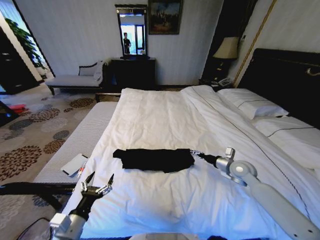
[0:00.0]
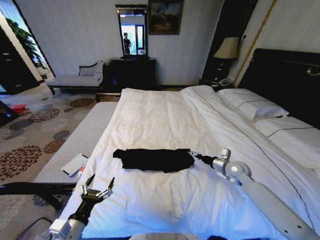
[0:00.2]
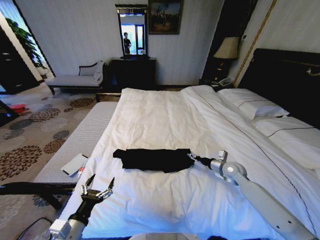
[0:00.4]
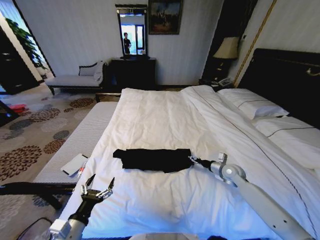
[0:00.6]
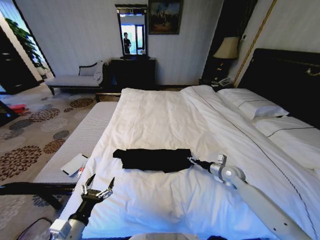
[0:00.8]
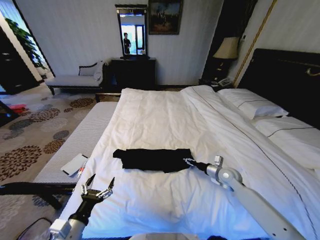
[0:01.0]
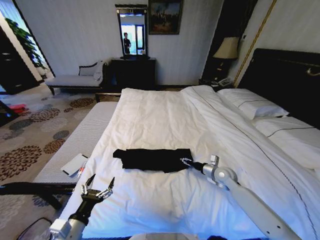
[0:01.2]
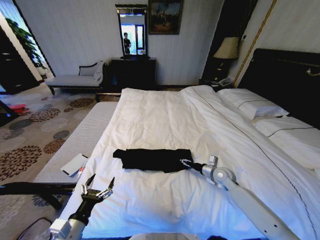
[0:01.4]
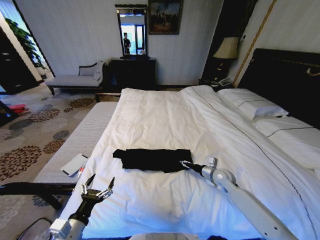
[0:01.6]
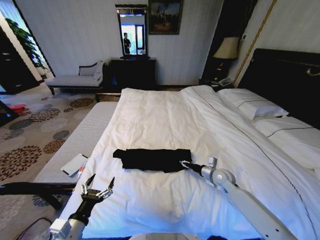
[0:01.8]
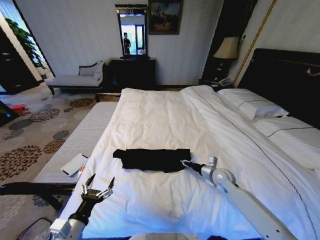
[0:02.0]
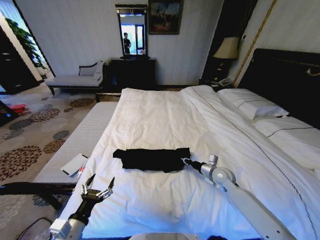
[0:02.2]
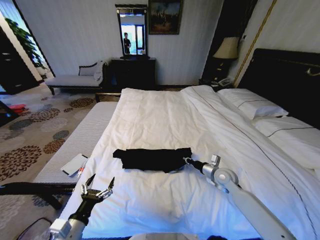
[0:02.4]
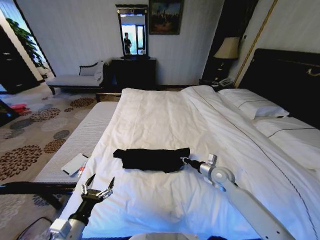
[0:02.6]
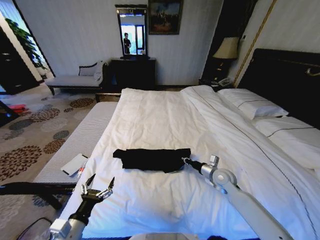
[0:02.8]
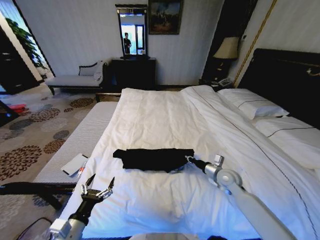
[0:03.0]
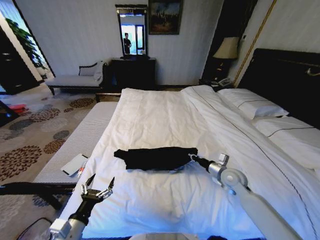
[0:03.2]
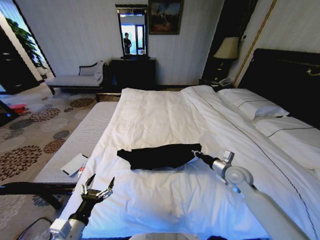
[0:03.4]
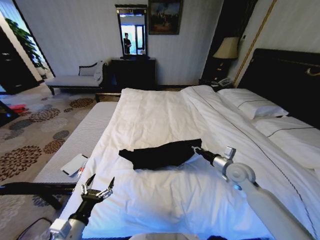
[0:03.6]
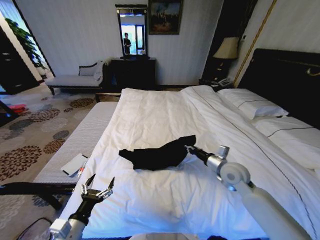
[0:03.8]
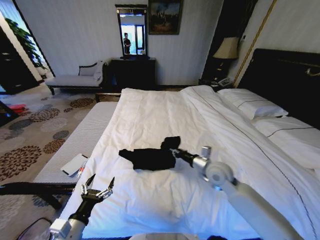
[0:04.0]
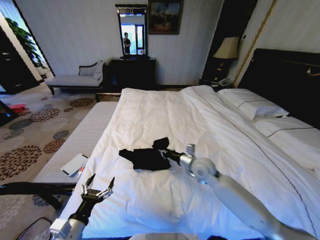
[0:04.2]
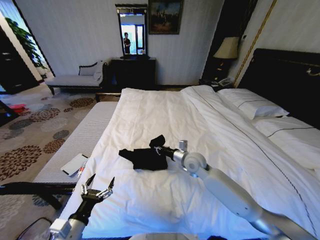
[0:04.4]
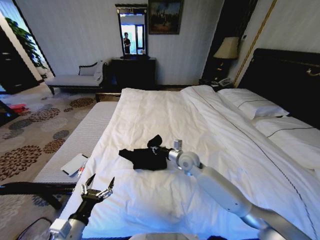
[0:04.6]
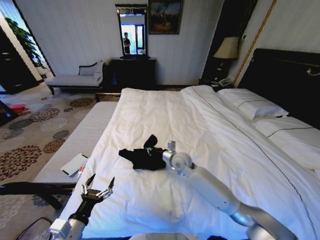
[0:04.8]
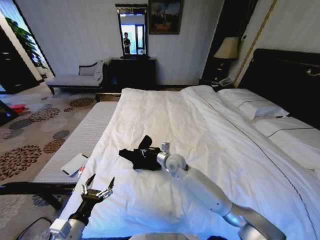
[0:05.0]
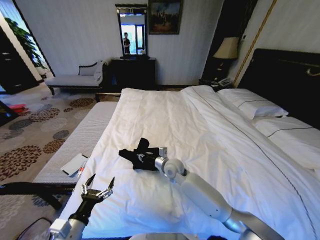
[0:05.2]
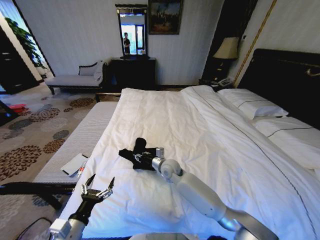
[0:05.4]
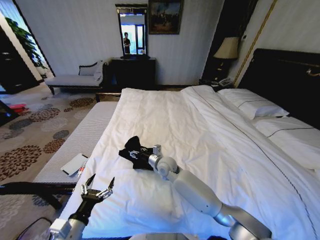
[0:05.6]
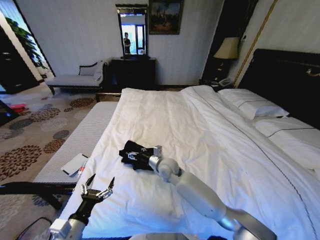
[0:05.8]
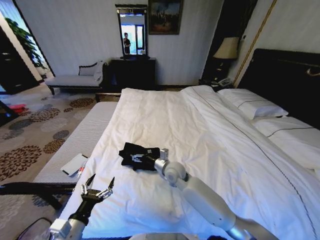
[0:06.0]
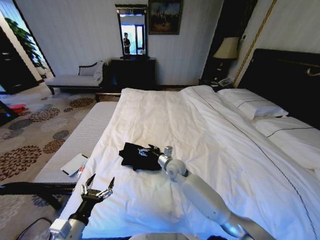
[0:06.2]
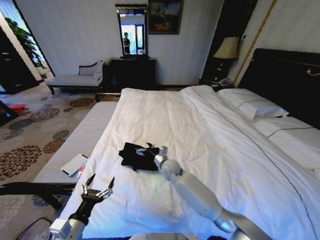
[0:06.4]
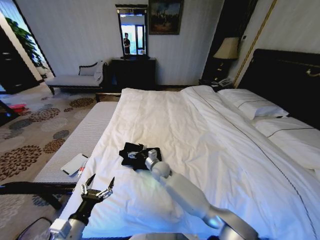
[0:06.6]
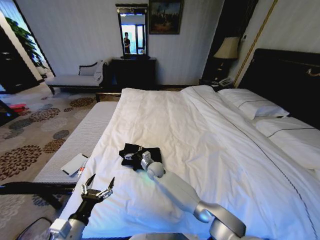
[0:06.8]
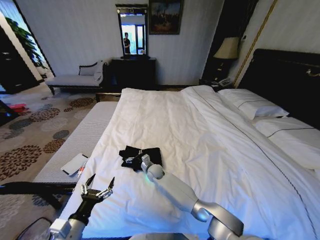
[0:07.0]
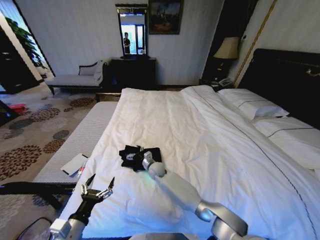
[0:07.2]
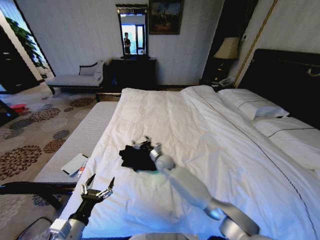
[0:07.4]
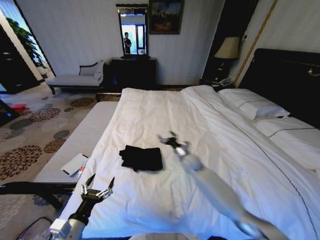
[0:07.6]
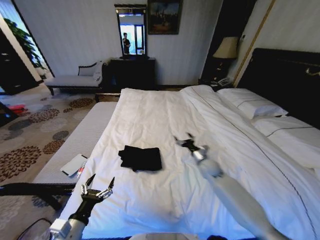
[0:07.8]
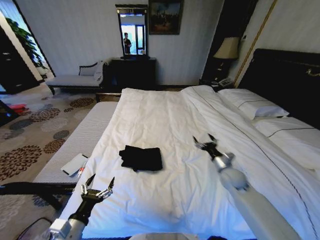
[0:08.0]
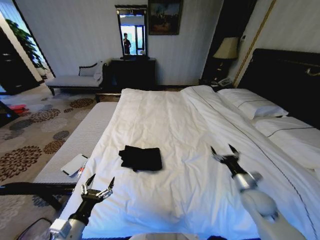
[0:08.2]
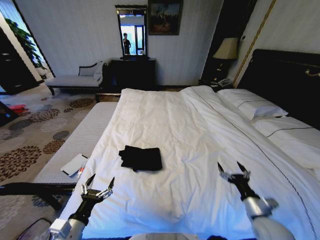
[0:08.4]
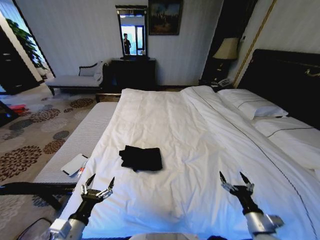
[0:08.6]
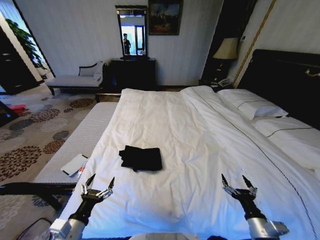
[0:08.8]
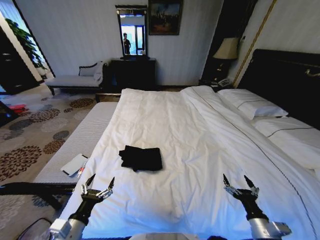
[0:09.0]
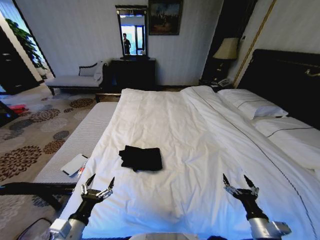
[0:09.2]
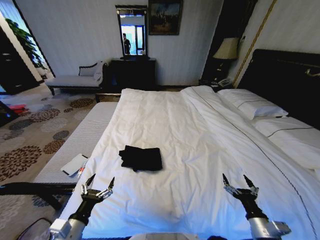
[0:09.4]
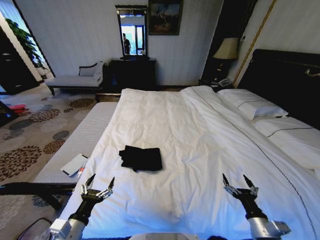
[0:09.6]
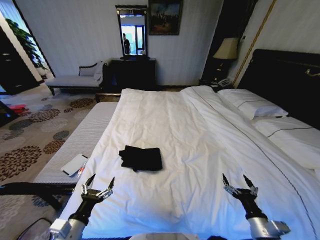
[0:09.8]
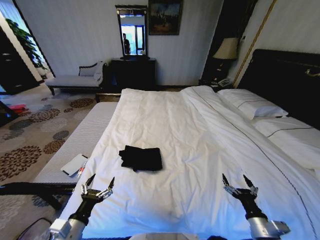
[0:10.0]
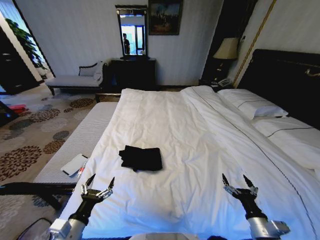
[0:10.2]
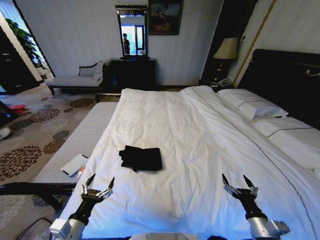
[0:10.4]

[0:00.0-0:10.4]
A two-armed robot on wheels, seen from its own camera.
Task of the whole recording: Fold the clothes on the bed.
0:00.0 to 0:01.4: The right gripper shifts some 5 cm downward.
0:01.4 to 0:03.0: The right gripper ends up about 5 cm from where it was, and closes.
0:03.0 to 0:04.4: The right gripper heads to the left and upward, covering about 15 cm.
0:04.4 to 0:06.0: The right gripper shifts roughly 10 cm to the left, and opens up.
0:06.0 to 0:07.4: The right gripper goes roughly 10 cm forward and downward.
0:07.4 to 0:09.0: The right gripper heads backward and to the right, covering roughly 50 cm.
0:09.0 to 0:10.4: Both grippers stay put.

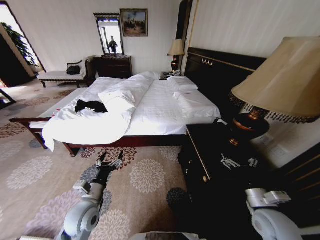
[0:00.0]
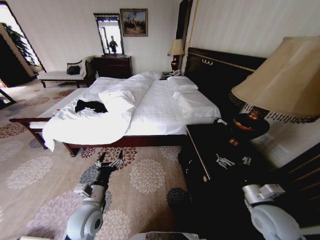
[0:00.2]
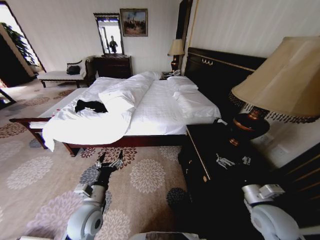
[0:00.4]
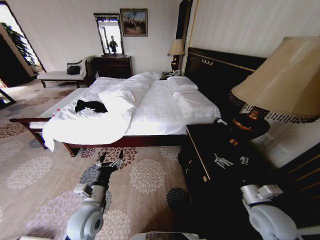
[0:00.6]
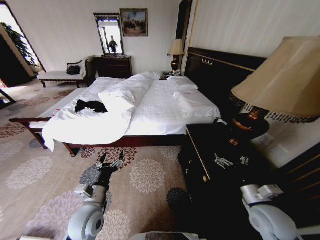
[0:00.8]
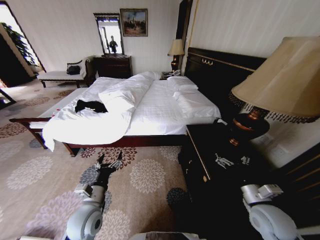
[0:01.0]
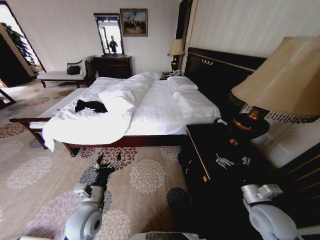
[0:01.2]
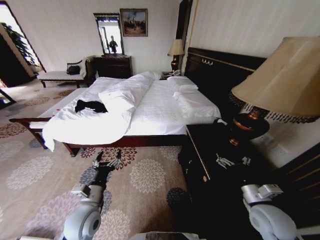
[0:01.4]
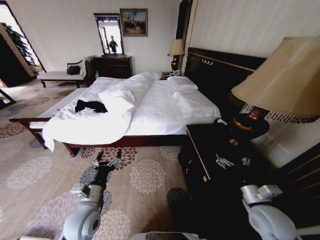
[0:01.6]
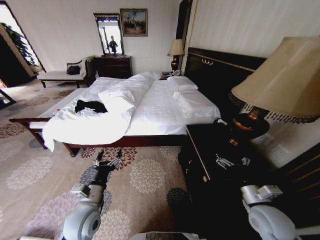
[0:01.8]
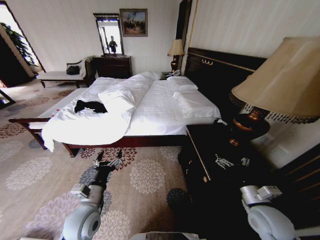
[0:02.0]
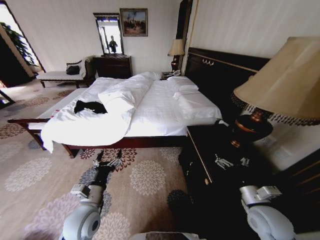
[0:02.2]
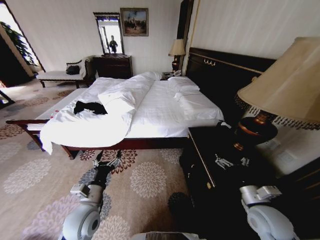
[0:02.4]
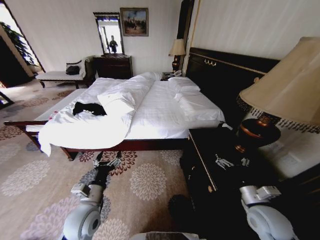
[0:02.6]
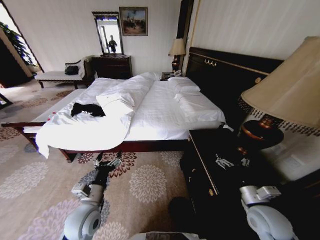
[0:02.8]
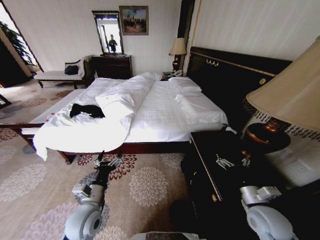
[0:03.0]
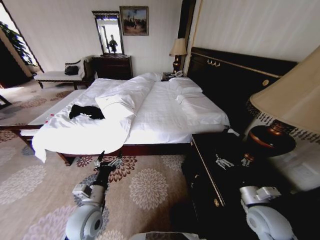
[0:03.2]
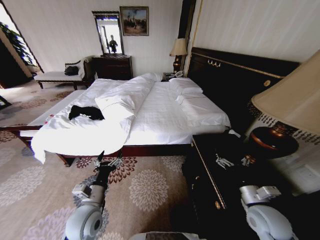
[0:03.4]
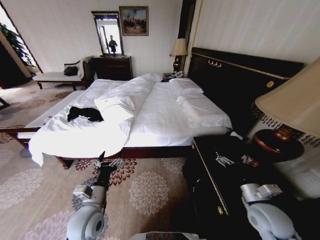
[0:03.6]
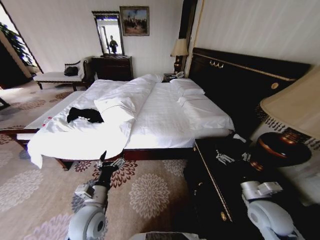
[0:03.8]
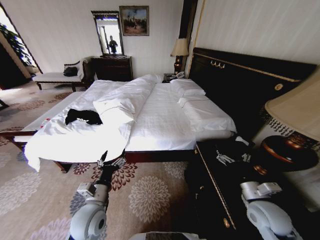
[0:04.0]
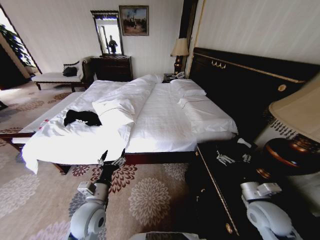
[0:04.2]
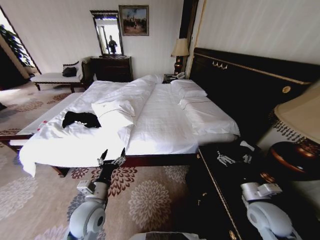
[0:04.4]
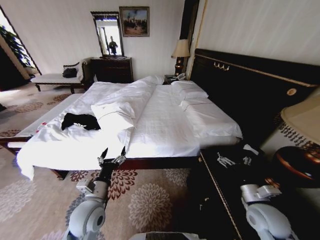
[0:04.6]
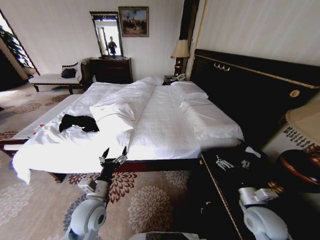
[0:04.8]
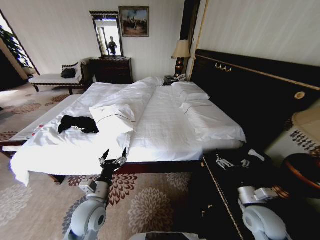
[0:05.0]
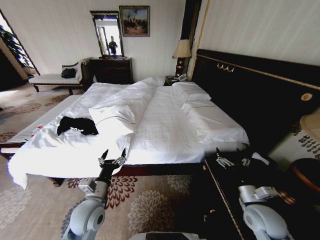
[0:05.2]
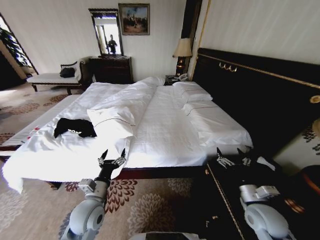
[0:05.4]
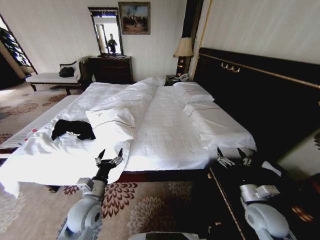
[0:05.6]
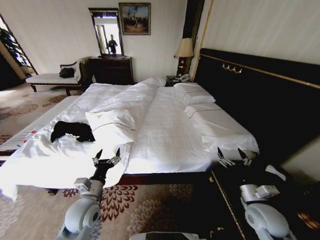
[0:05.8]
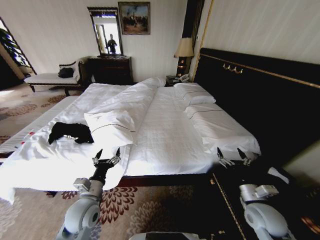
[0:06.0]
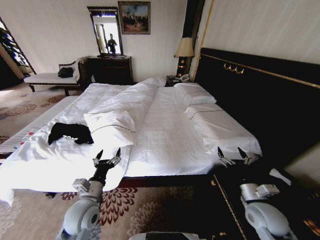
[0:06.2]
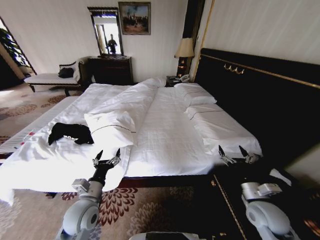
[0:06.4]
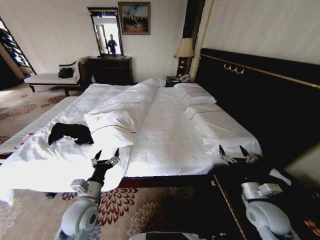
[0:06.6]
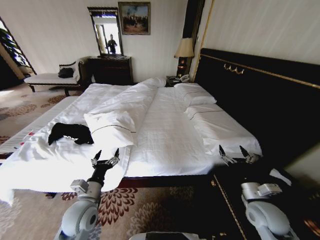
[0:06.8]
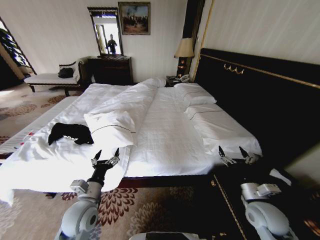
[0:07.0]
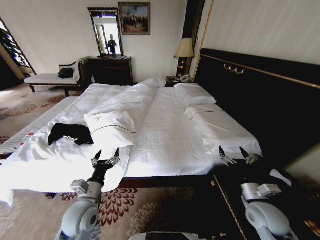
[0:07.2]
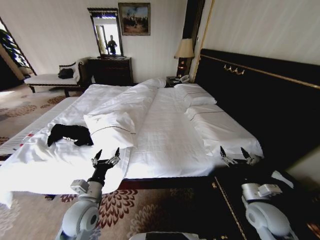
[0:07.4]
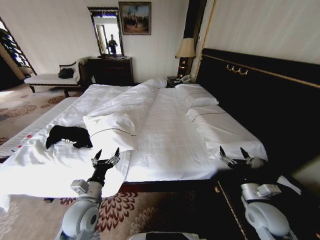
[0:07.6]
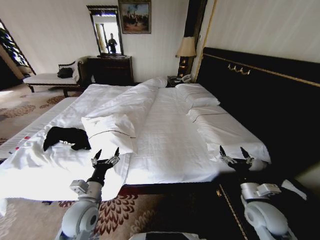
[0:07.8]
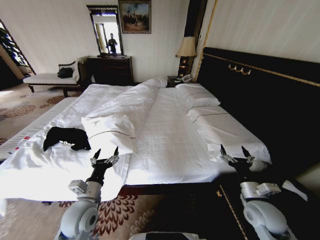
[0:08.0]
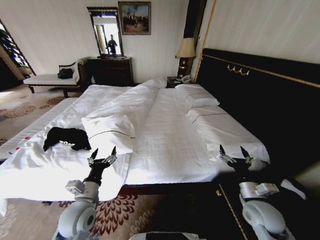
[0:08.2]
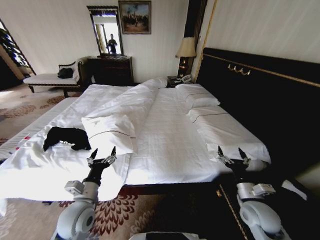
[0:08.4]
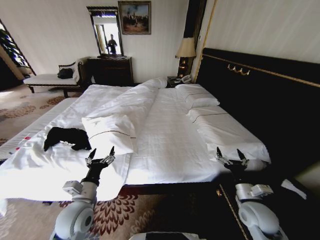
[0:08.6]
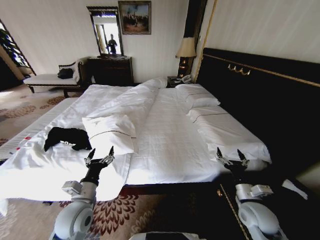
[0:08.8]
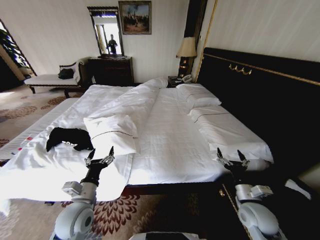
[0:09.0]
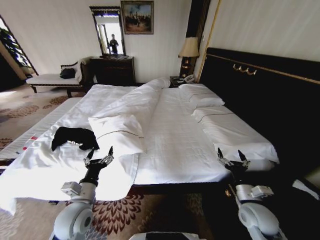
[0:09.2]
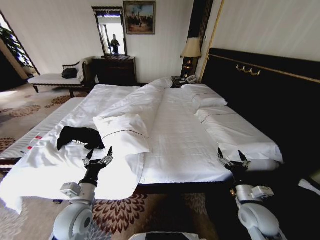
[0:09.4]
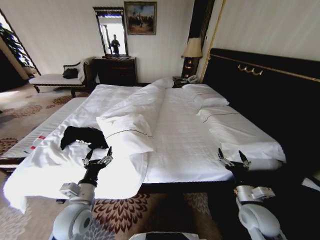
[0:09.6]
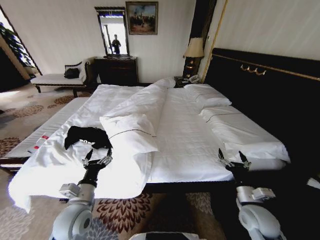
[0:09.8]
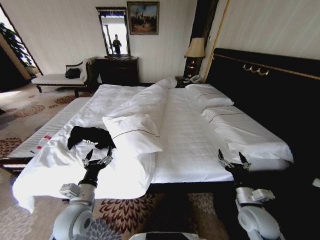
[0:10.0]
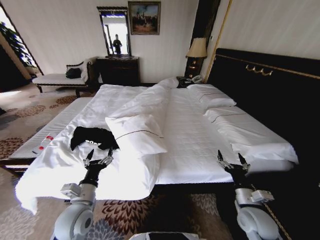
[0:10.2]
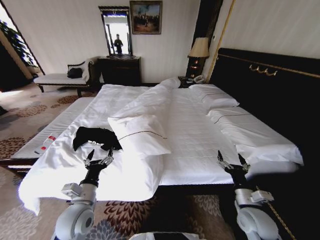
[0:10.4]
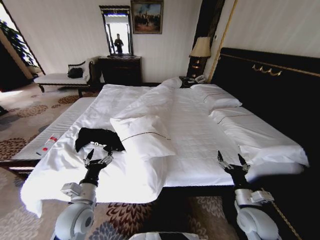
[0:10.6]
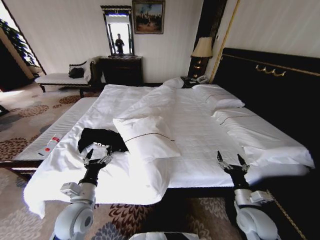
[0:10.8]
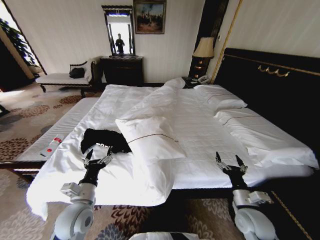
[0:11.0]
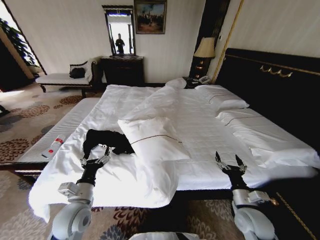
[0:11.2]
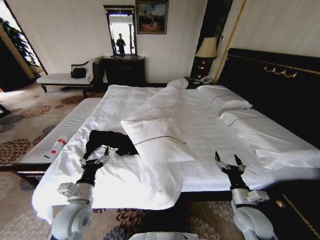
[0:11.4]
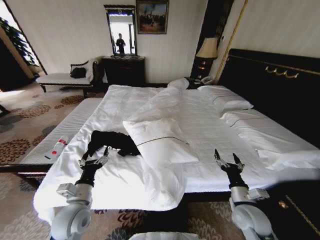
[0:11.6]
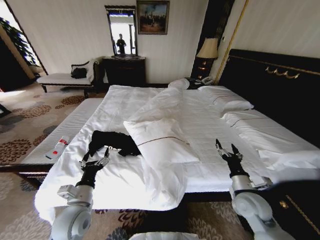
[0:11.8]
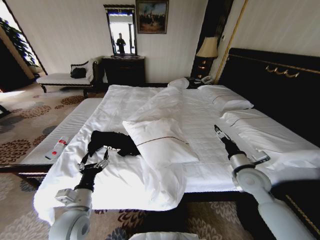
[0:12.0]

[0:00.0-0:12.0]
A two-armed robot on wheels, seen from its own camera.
Task of the whole recording: Fold the clothes on the bed.
0:06.0 to 0:07.6: The two grippers keep their place.
0:07.6 to 0:09.0: There are only small adjustments of the grippers.
0:10.4 to 0:12.0: The right gripper travels forward and upward by about 10 cm.
